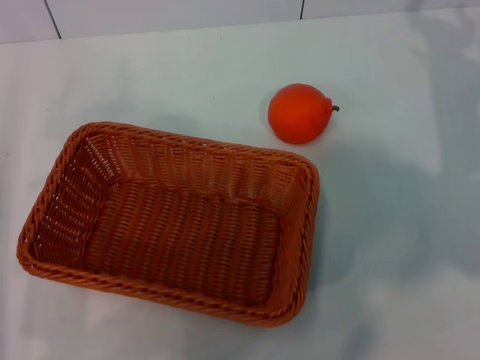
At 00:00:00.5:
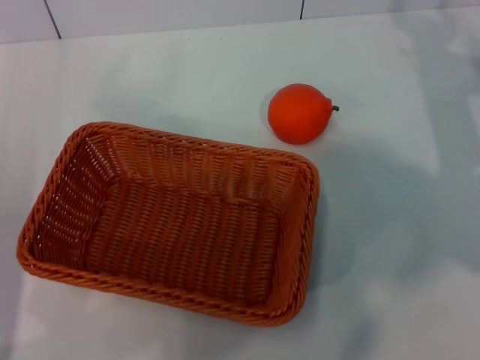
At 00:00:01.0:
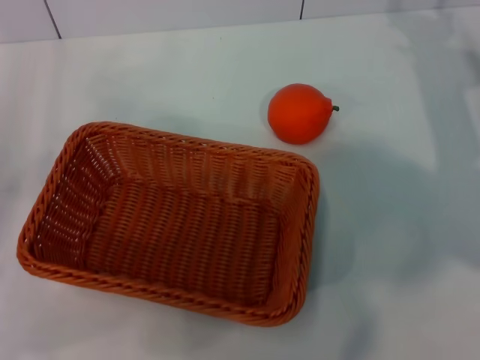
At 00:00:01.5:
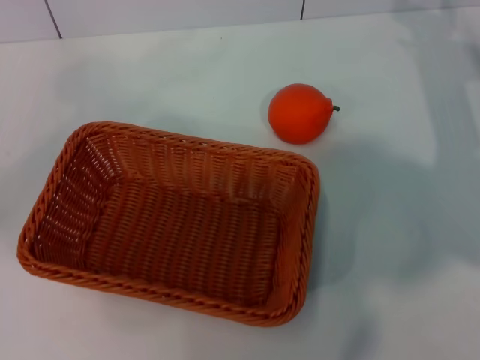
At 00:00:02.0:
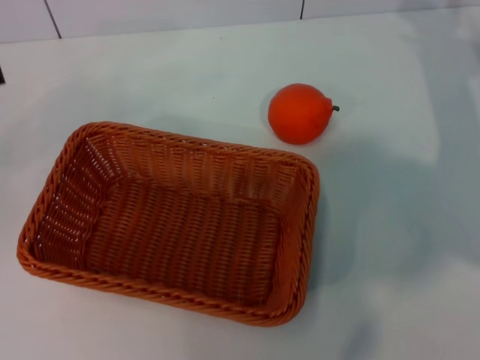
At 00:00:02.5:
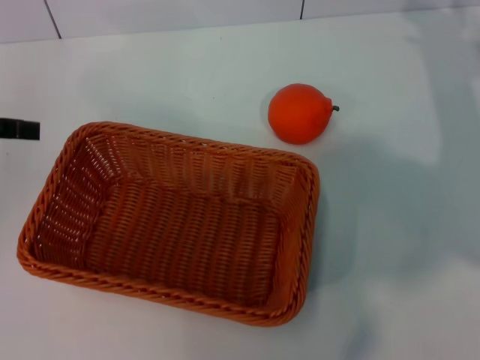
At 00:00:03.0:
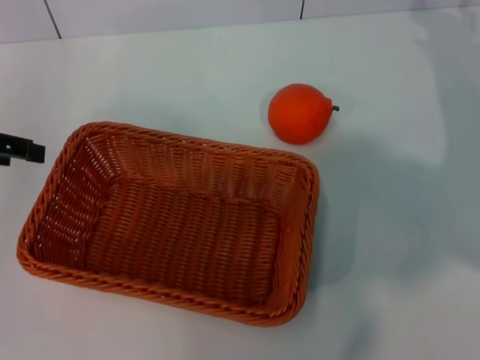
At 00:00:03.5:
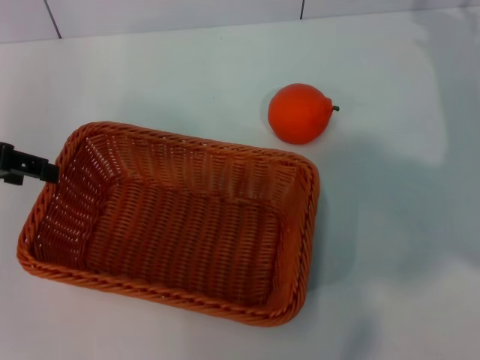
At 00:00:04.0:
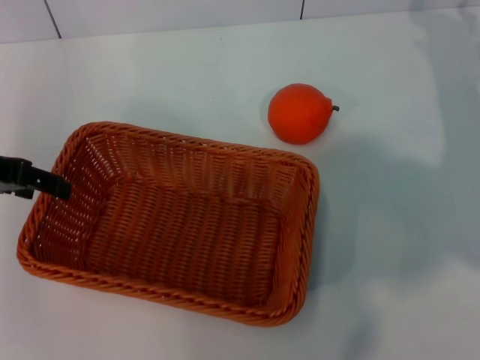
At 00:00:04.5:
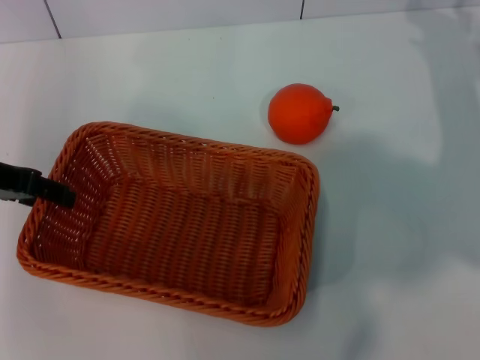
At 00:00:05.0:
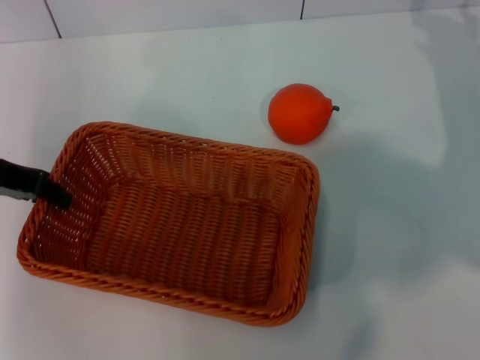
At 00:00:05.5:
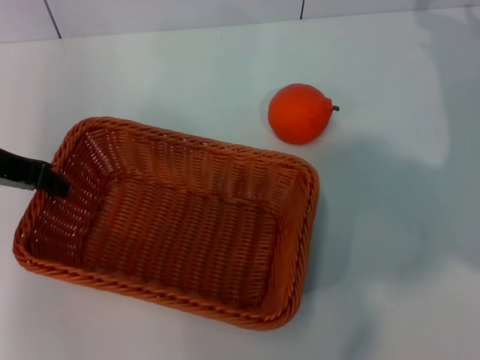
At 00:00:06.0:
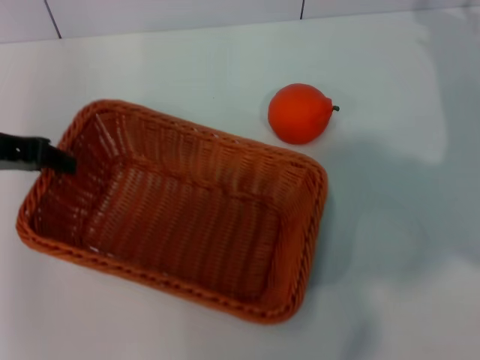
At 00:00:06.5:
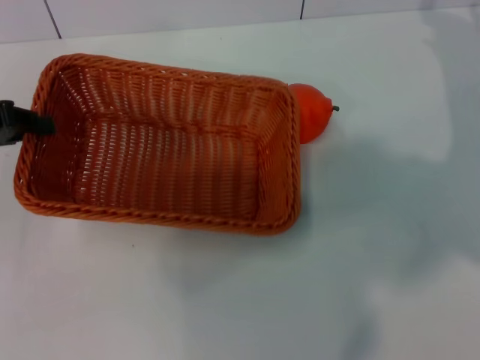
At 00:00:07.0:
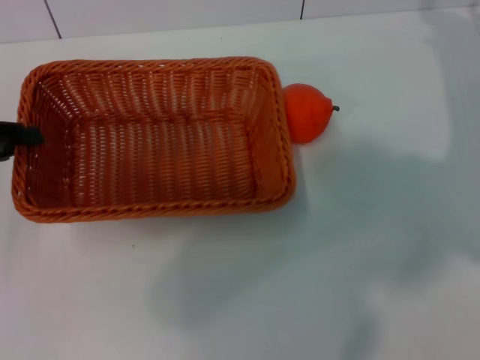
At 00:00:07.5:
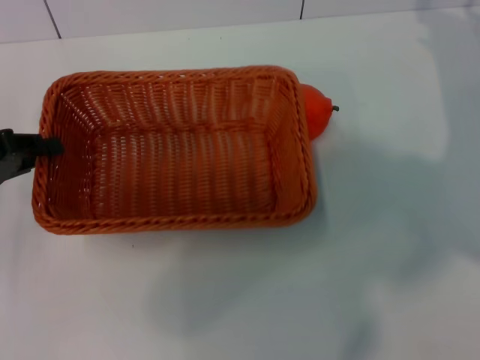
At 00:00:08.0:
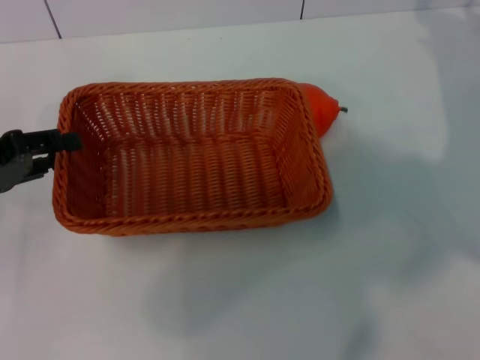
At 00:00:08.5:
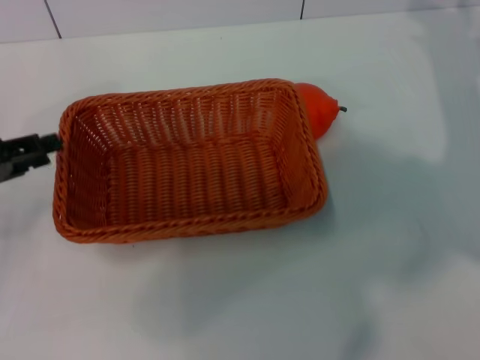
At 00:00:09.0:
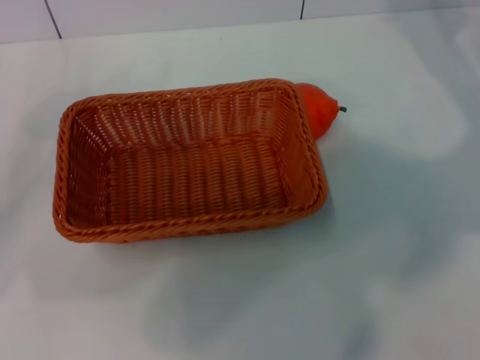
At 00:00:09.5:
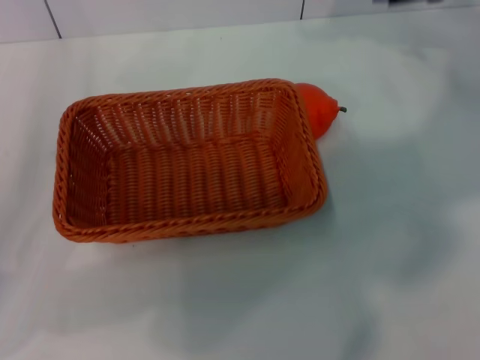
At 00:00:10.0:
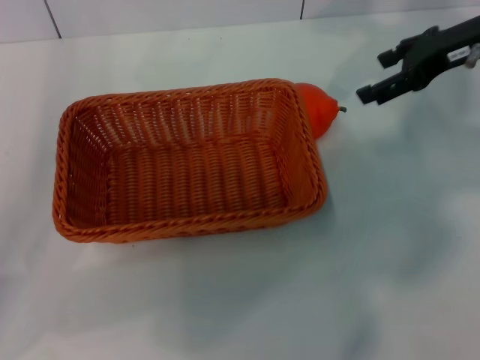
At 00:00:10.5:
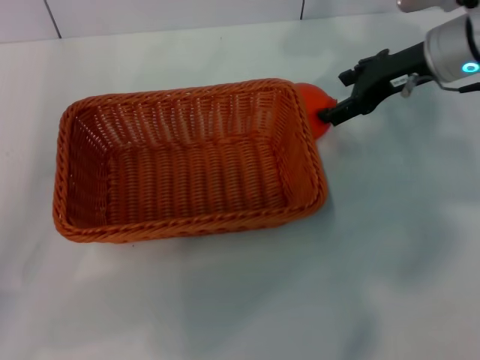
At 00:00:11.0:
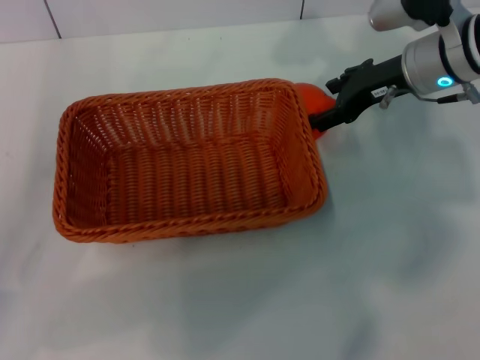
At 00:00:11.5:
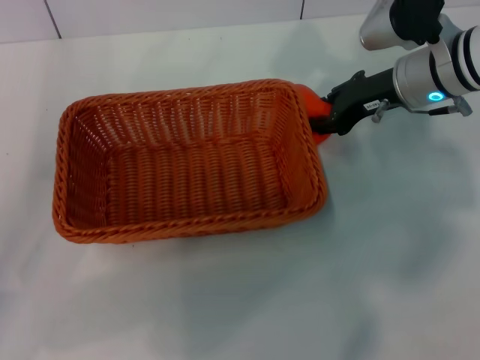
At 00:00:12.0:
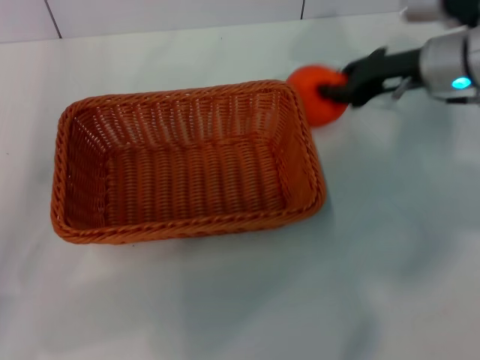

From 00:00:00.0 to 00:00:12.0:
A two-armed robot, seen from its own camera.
Task of the whole recording: the left gripper pick up the yellow basket and place it horizontally in the middle of the table, the right gripper pick up the orange and place it into the yellow basket.
Step, from 00:00:00.0 to 00:00:06.0: Pick up the light basket with the left gripper.
Step, from 00:00:06.5 to 00:00:08.5: Place the light basket in the center of view with the left gripper.
Step, from 00:00:09.0 to 00:00:12.0: Pick up the orange with the right gripper.
From 00:00:00.0 to 00:00:02.0: The left gripper is displaced upward, forward and to the left by some 20 cm.
From 00:00:02.0 to 00:00:04.0: The left gripper heads to the right, covering roughly 10 cm.
From 00:00:04.0 to 00:00:06.0: The left gripper closes up.
From 00:00:06.0 to 00:00:08.0: The left gripper heads downward, covering about 5 cm.
From 00:00:08.0 to 00:00:10.0: The right gripper goes roughly 10 cm upward and to the left.
From 00:00:10.0 to 00:00:12.0: The right gripper is displaced downward by roughly 5 cm, and closes, while the left gripper opens up.

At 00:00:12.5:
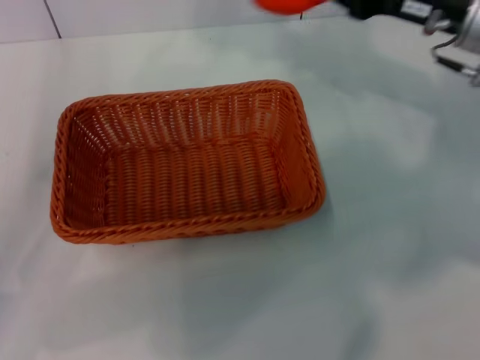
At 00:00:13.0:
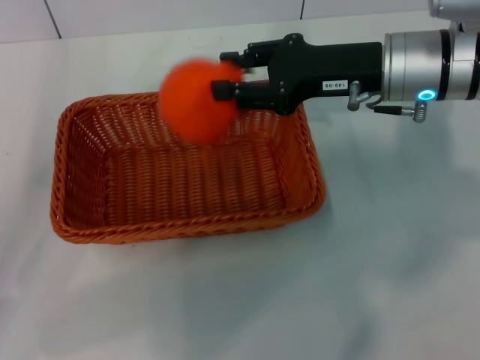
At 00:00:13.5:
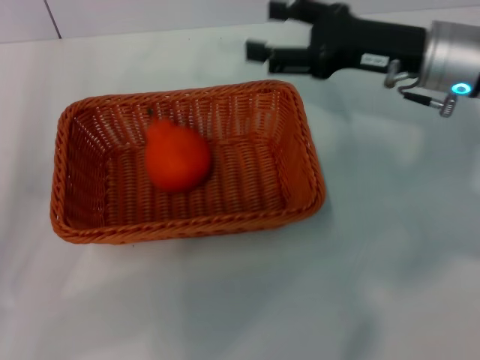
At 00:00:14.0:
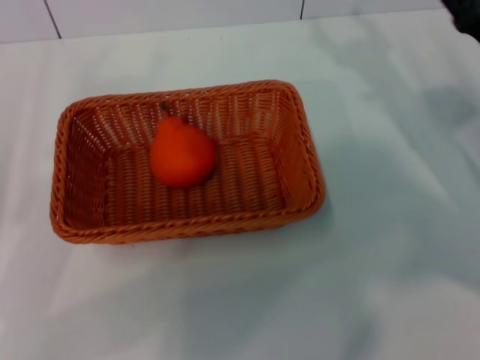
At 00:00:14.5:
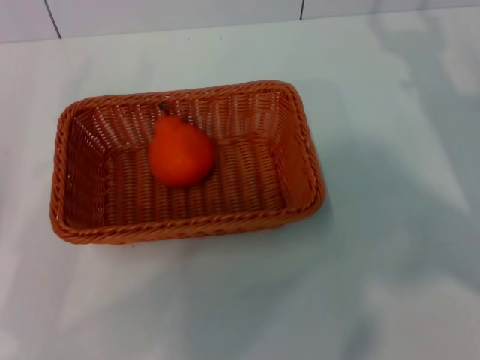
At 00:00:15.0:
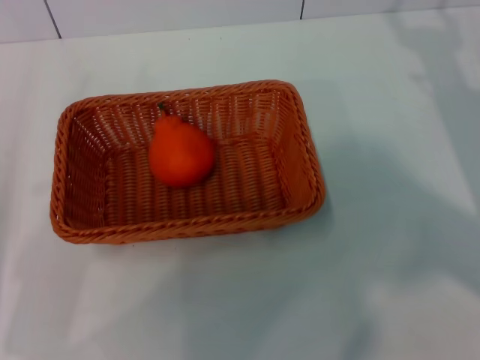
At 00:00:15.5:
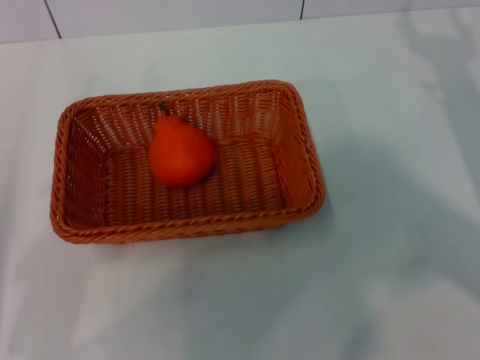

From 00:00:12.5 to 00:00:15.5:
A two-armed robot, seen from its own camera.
Task of the whole recording: the left gripper pick up the yellow basket and place it horizontally in the middle of the table, the right gripper pick up the orange and place it into the yellow basket.
From 00:00:12.5 to 00:00:14.0: The right gripper is displaced downward and backward by approximately 10 cm, and opens up.
